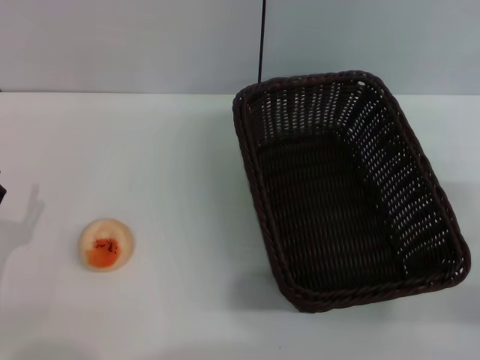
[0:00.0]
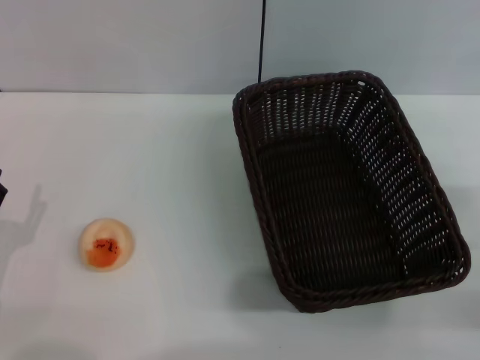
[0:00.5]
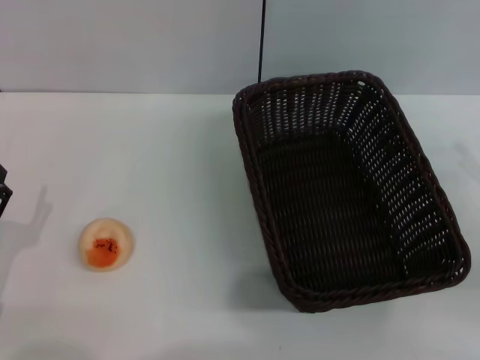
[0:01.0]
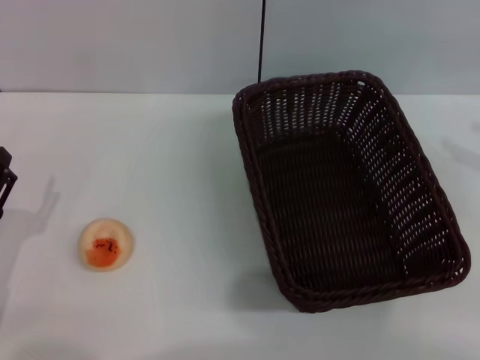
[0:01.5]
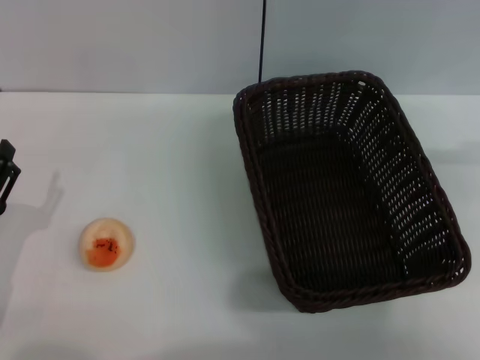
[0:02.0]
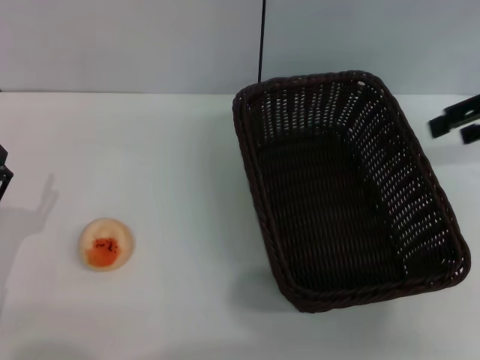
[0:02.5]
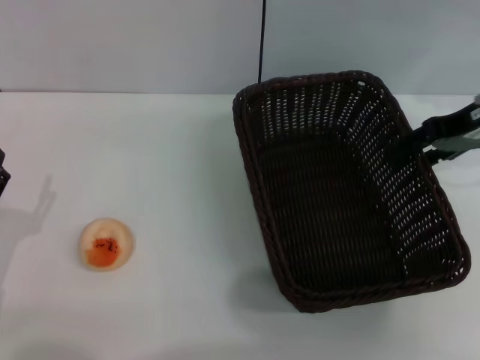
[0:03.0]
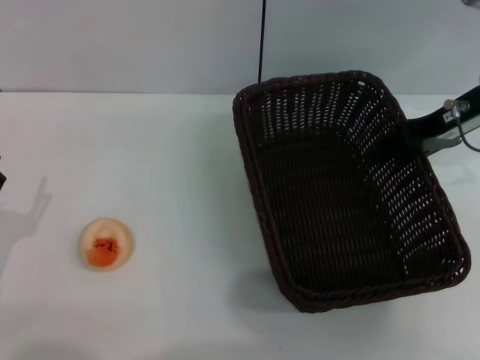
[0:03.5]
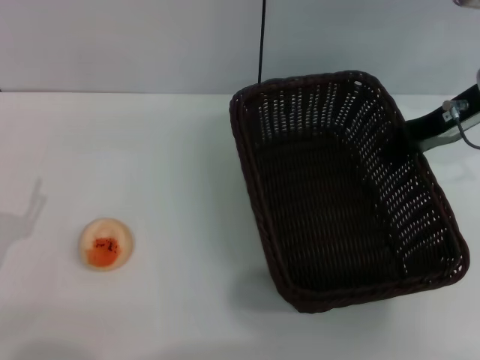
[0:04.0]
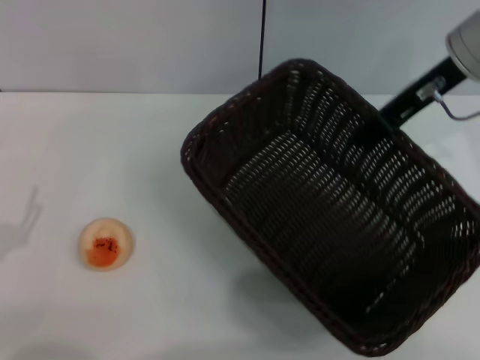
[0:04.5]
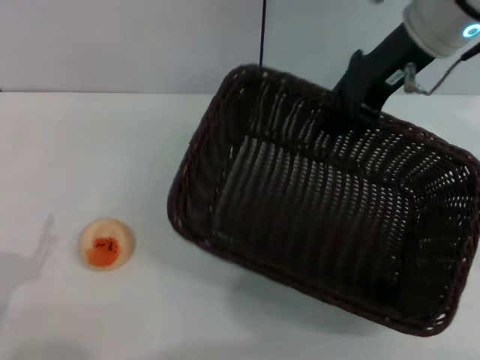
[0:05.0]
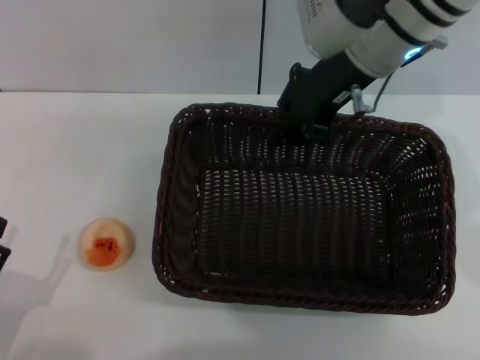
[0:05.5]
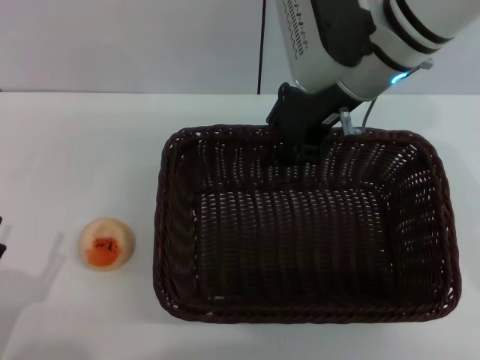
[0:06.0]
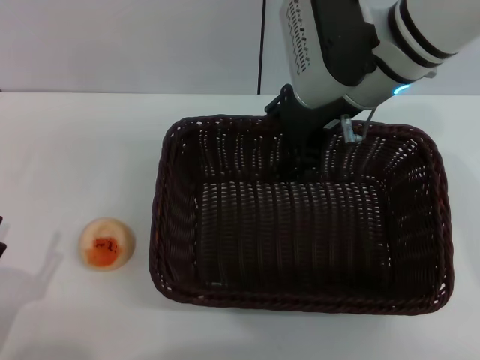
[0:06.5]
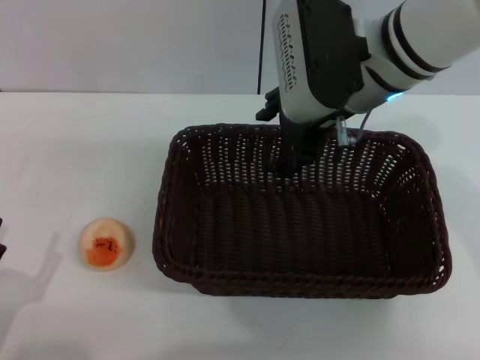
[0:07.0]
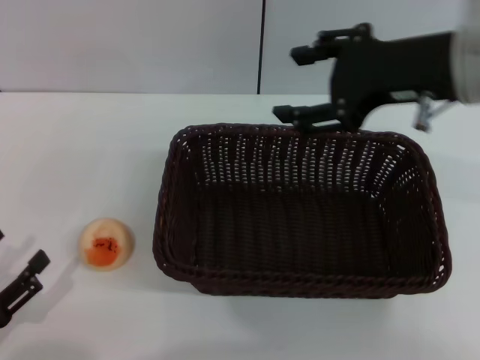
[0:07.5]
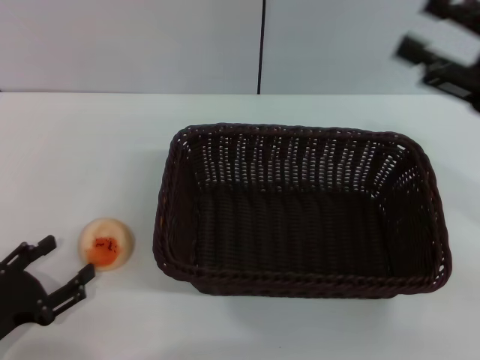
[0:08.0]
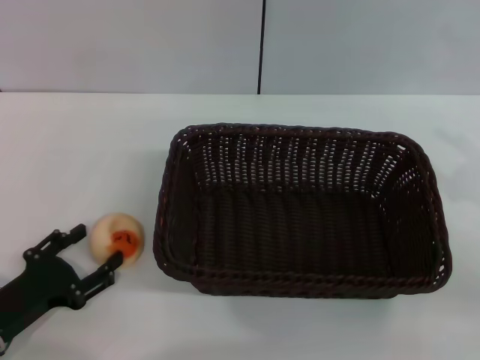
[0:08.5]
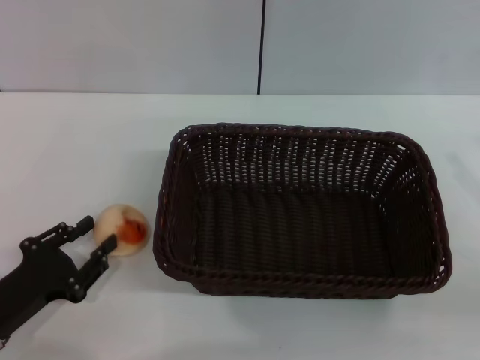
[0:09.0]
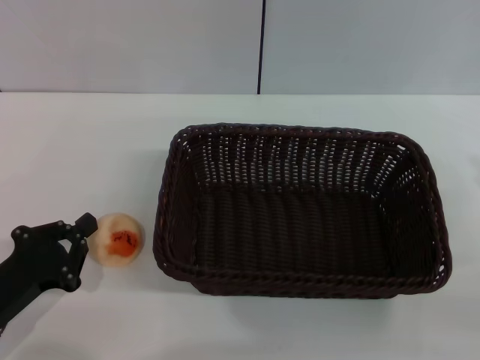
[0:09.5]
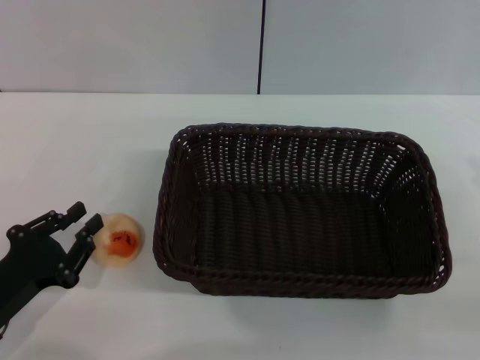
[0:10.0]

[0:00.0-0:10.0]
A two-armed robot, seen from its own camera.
Step, 0:00.0 to 0:07.0: Move the basket to the center of view with the right gripper.
0:00.0 to 0:02.0: The right gripper is displaced upward and forward by some 25 cm.
0:02.0 to 0:04.0: The right gripper moves to the left, downward and forward, approximately 15 cm, and closes up.
0:04.0 to 0:06.0: The right gripper shifts approximately 15 cm to the left, while the left gripper shifts approximately 10 cm backward.
0:06.0 to 0:08.0: The left gripper goes some 5 cm forward, while the right gripper shifts roughly 20 cm to the right and backward, and opens up.
0:08.0 to 0:10.0: The right gripper travels downward, to the right and backward by approximately 15 cm; the left gripper closes up.

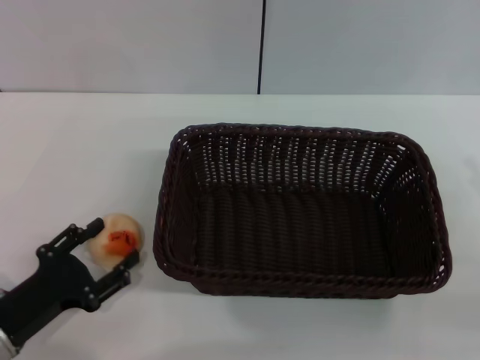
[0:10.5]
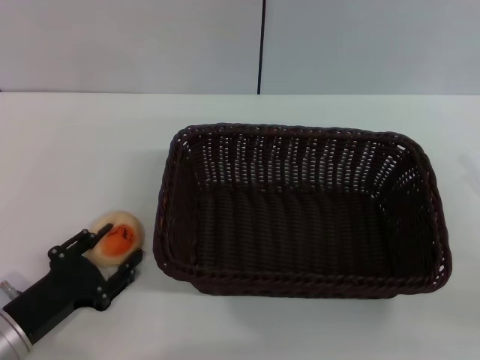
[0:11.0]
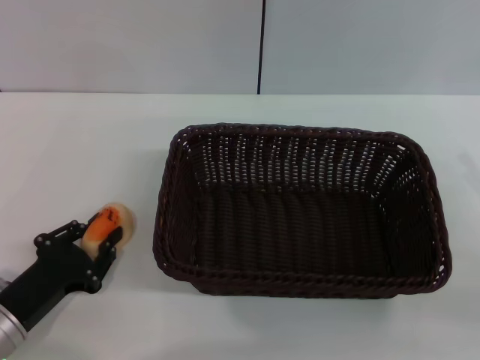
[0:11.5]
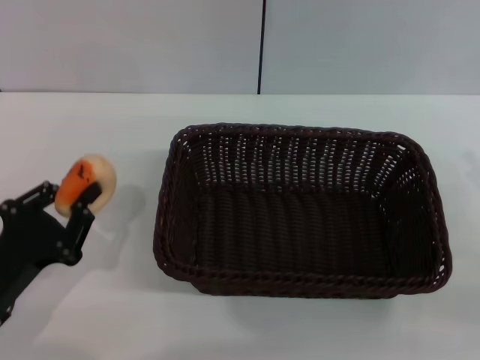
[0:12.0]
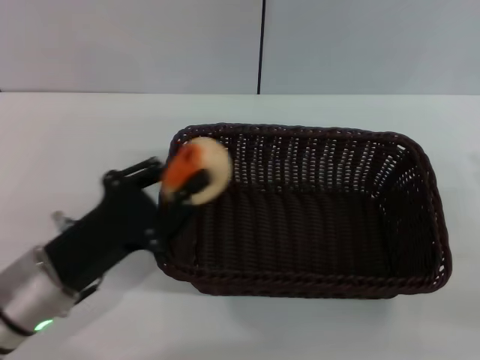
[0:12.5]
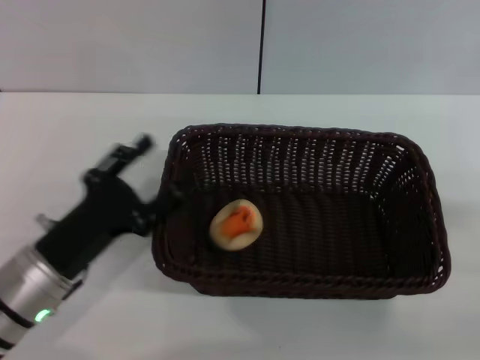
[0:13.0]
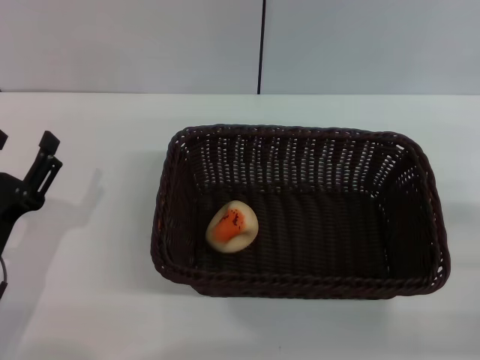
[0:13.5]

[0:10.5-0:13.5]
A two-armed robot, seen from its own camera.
0:10.5 to 0:12.0: There are only small adjustments of the grippers.
0:12.0 to 0:13.5: The left gripper opens.
